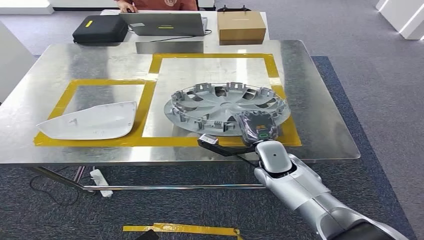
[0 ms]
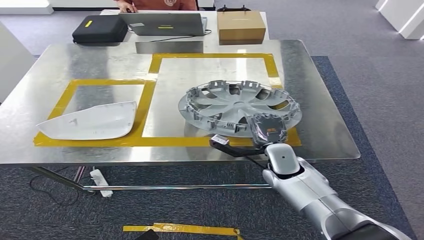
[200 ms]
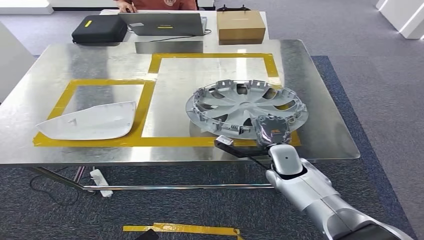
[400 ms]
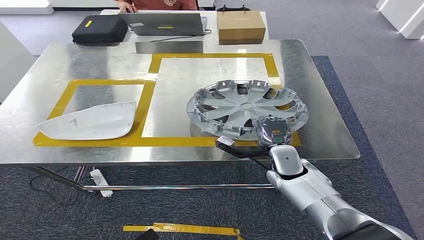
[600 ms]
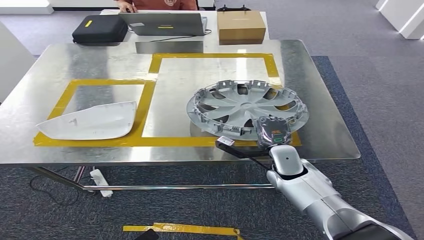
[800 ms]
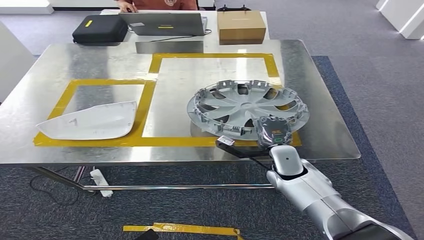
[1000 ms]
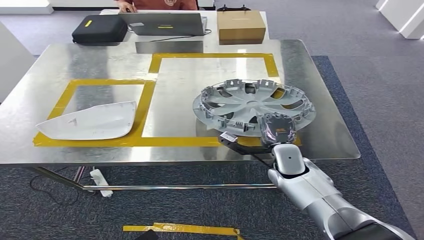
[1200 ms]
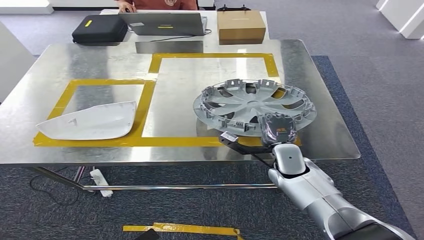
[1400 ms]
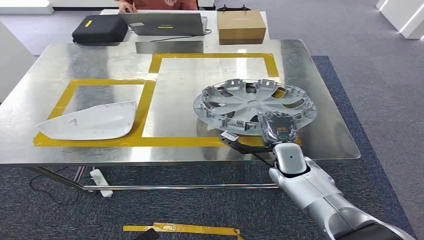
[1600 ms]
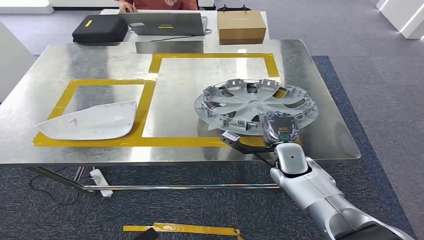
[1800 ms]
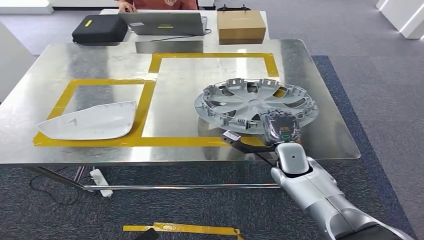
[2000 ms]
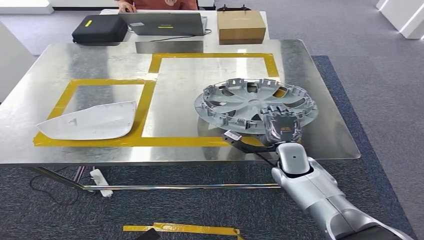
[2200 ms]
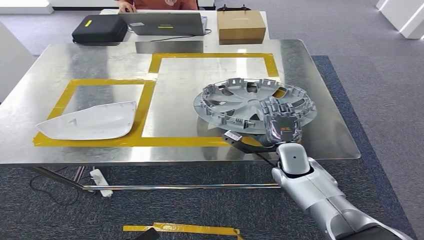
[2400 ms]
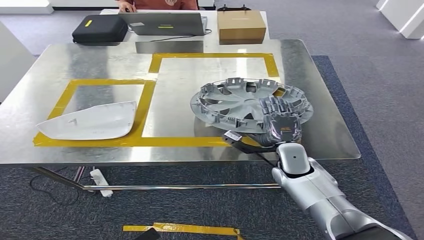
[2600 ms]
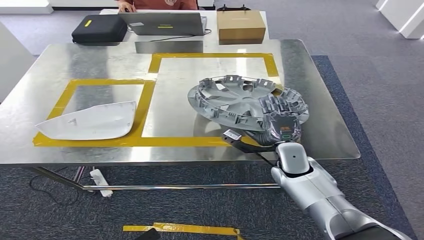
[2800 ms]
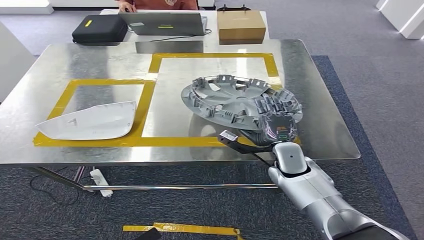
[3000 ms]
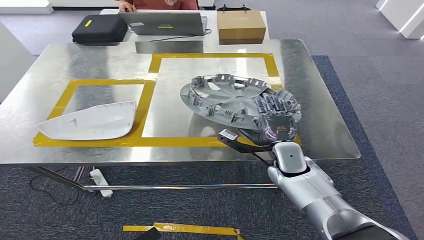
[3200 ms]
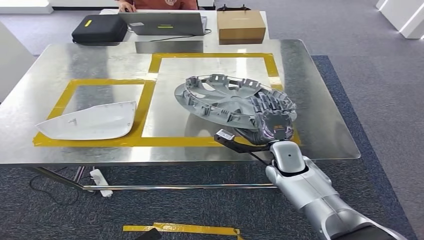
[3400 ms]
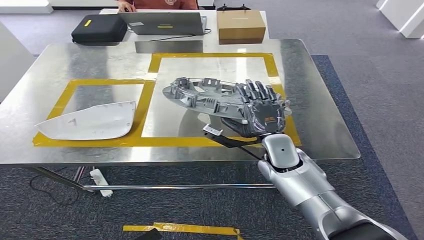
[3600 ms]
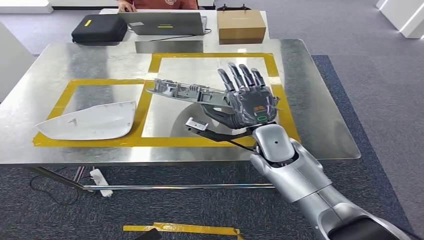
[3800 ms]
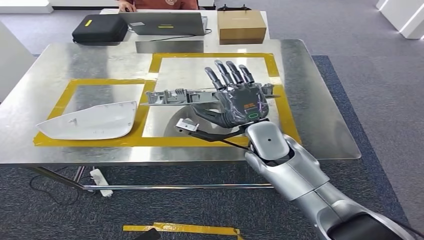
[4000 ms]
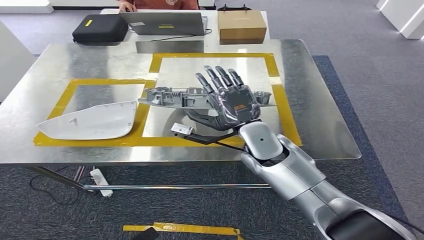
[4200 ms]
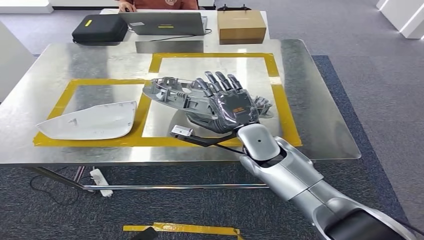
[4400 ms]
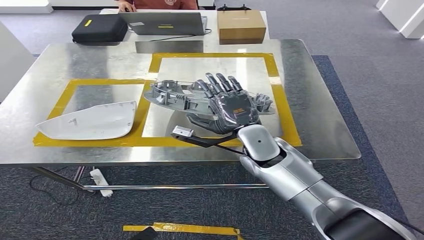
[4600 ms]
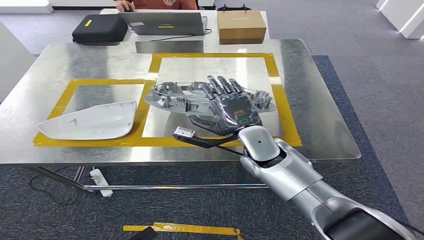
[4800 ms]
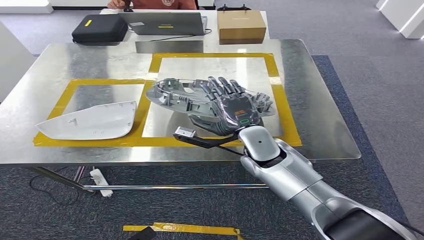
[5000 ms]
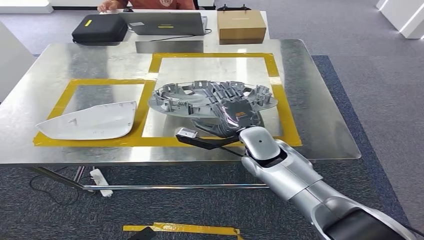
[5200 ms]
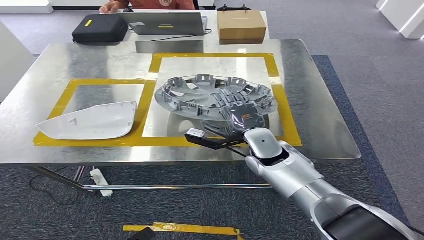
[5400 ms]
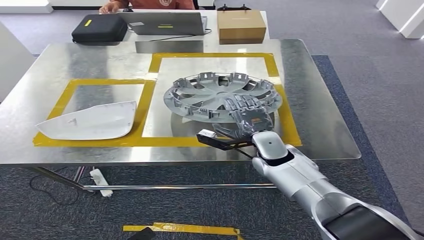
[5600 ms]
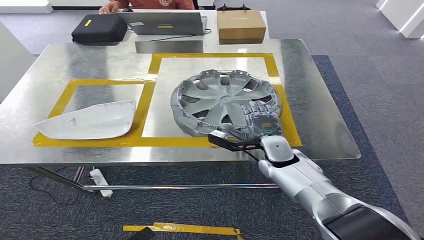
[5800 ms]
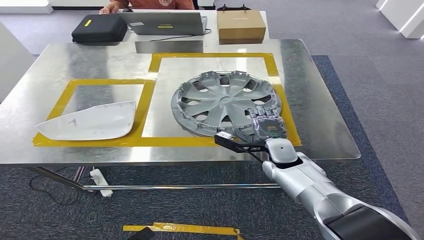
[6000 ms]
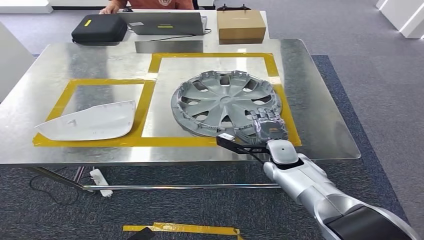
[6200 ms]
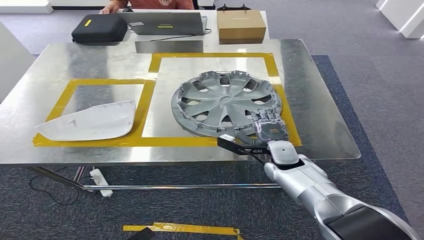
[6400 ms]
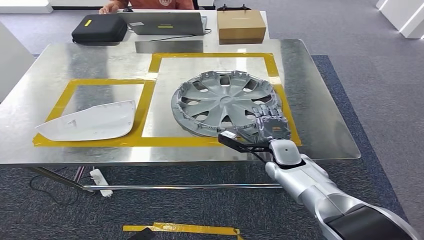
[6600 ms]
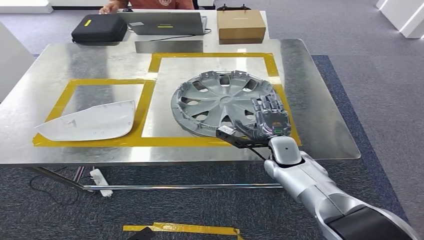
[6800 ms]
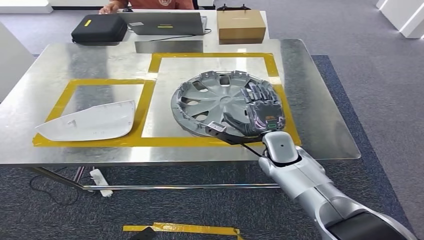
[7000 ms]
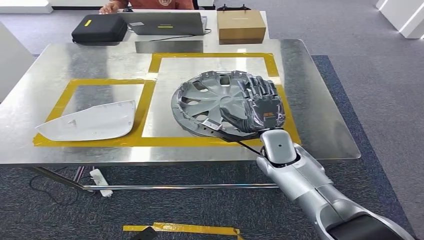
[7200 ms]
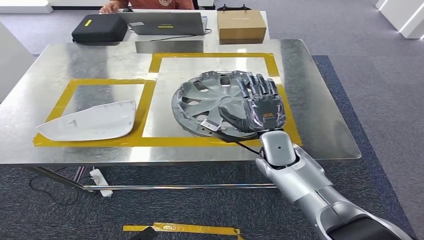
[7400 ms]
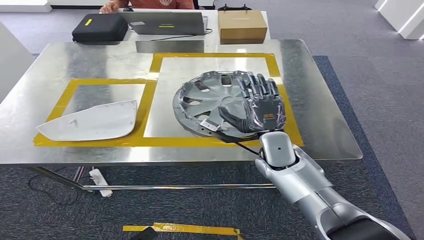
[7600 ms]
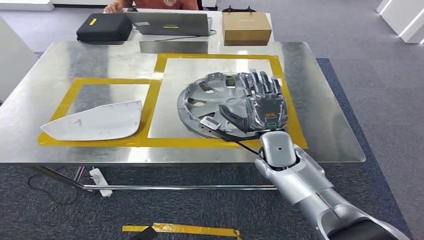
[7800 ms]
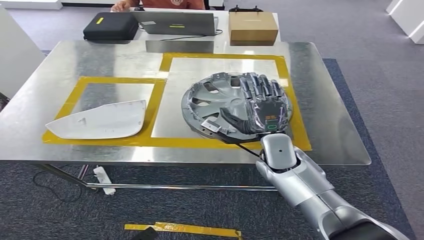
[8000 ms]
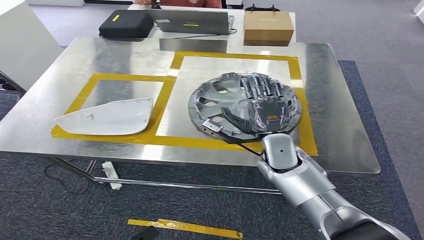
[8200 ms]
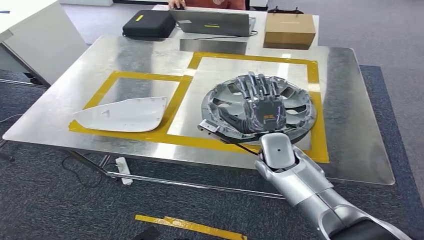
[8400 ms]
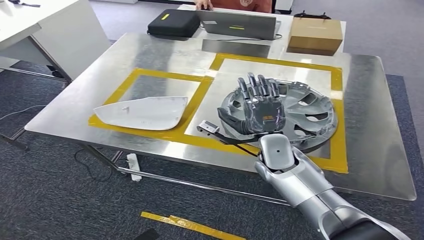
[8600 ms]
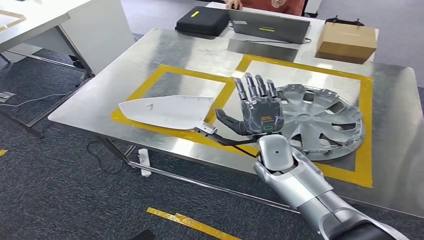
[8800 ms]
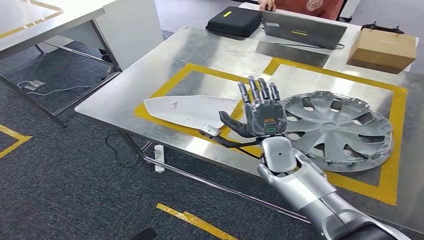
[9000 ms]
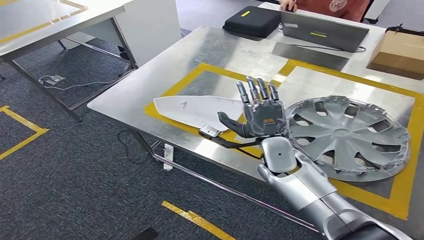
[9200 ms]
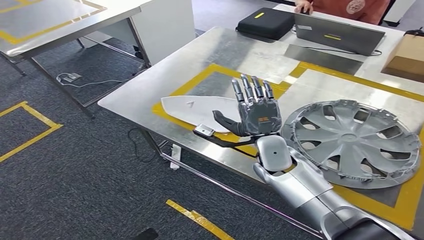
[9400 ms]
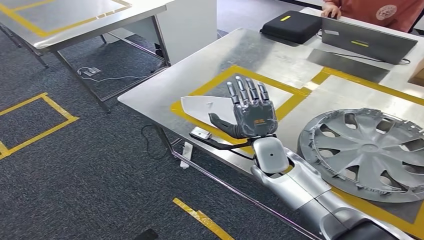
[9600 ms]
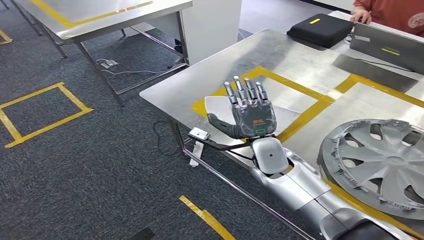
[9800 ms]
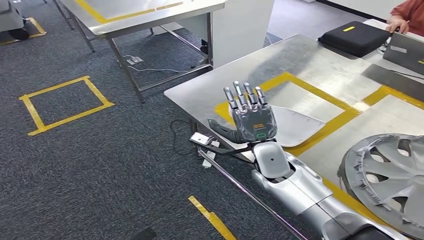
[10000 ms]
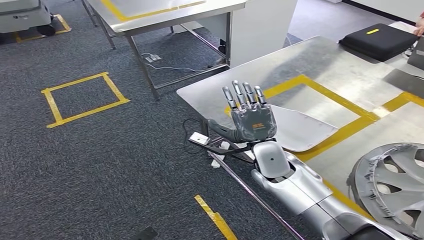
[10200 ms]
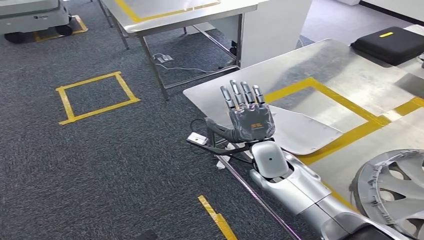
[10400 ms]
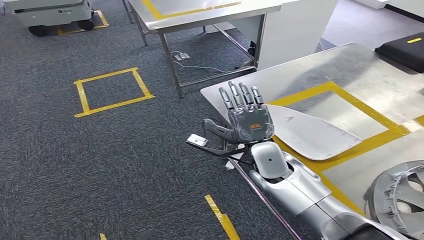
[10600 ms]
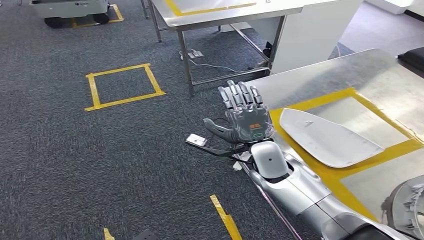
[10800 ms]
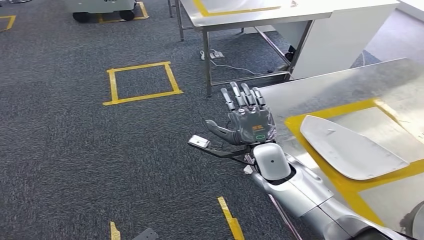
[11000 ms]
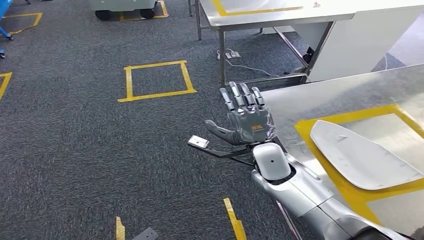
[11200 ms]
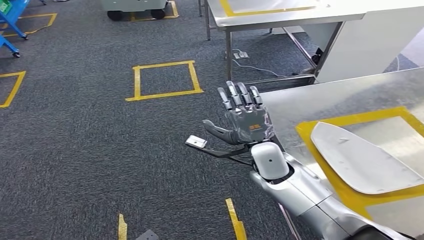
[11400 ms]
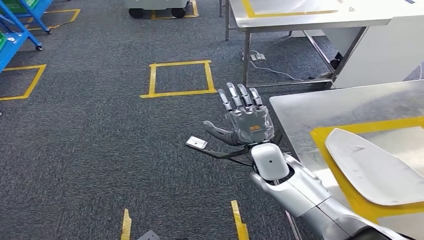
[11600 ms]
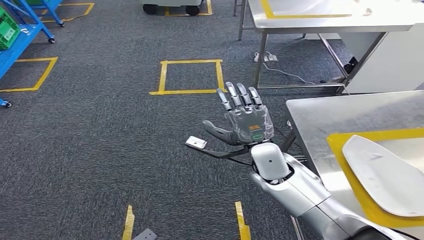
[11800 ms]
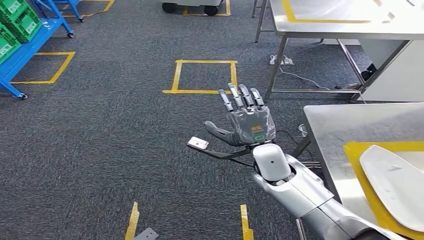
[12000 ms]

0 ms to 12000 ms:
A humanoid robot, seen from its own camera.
Step, 0 ms to 8600 ms: Insert the small component into the corresponding slot on the workbench.
0 ms to 3000 ms: The hands stay close to where they were, moving slightly.
3000 ms to 4400 ms: The right hand goes approximately 10 cm upward and to the left.
4400 ms to 6000 ms: The right hand heads downward and to the right, covering roughly 10 cm.
6000 ms to 7600 ms: The right hand moves upward, about 5 cm.

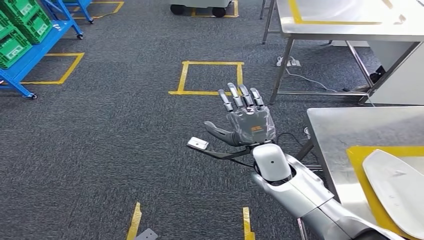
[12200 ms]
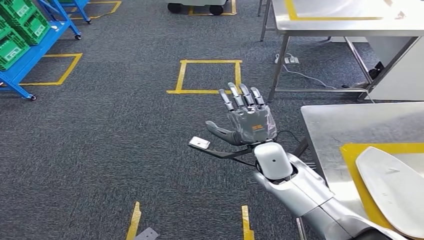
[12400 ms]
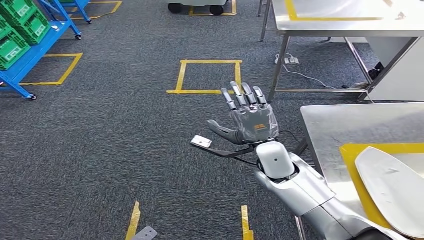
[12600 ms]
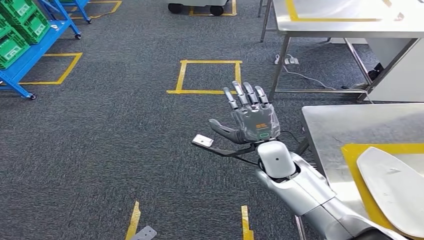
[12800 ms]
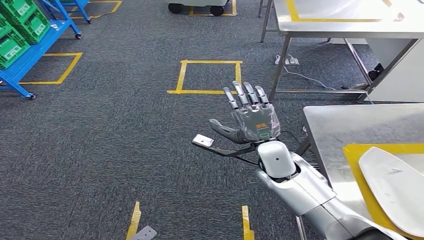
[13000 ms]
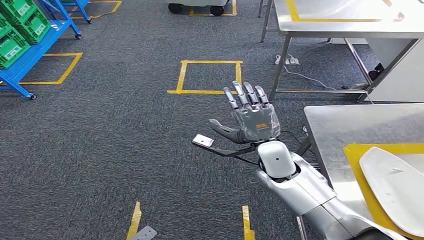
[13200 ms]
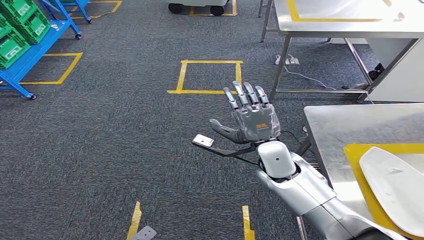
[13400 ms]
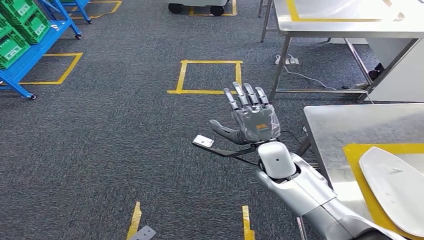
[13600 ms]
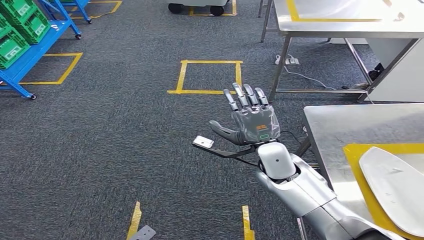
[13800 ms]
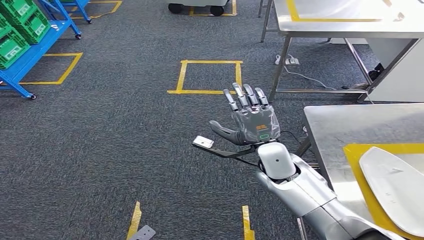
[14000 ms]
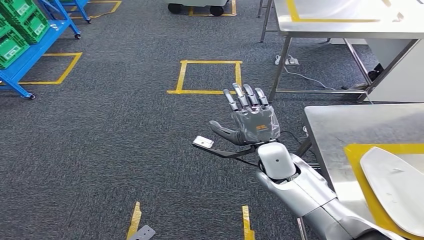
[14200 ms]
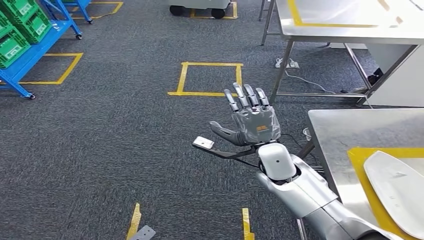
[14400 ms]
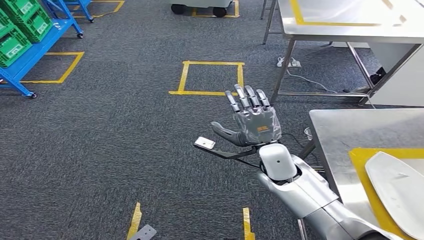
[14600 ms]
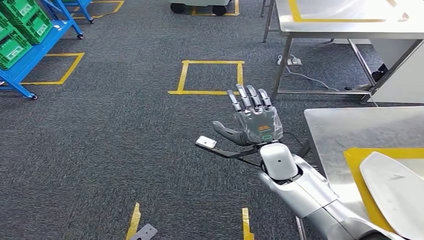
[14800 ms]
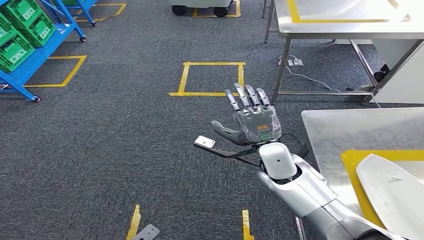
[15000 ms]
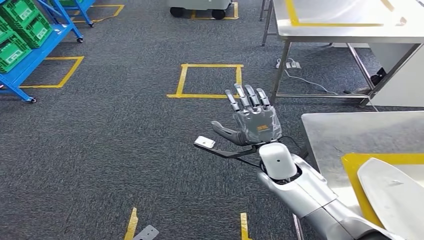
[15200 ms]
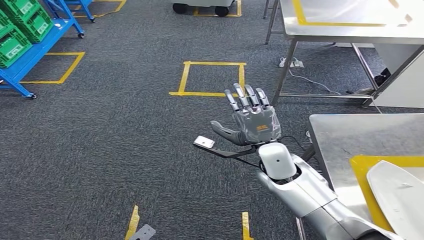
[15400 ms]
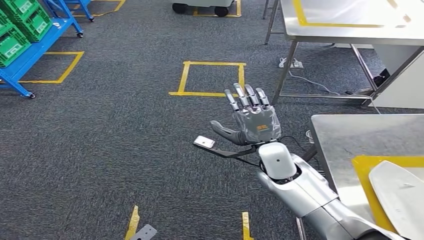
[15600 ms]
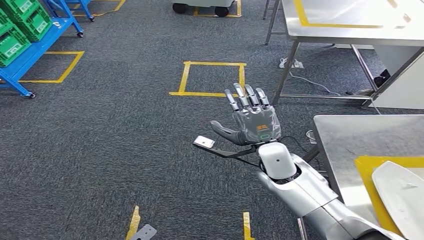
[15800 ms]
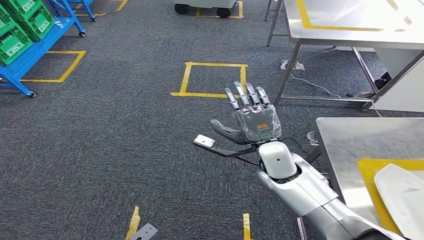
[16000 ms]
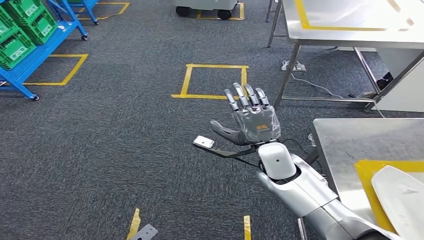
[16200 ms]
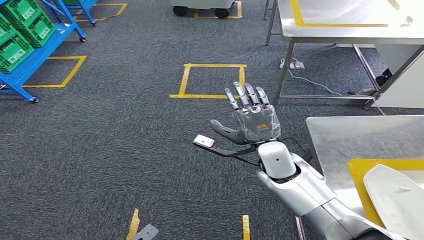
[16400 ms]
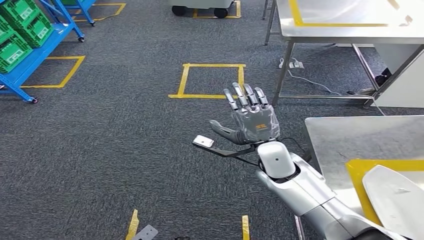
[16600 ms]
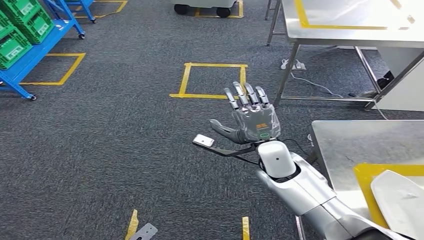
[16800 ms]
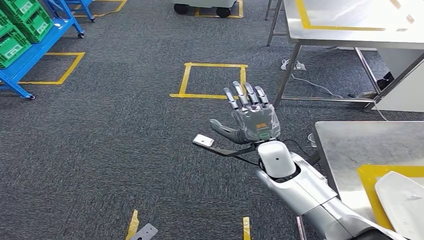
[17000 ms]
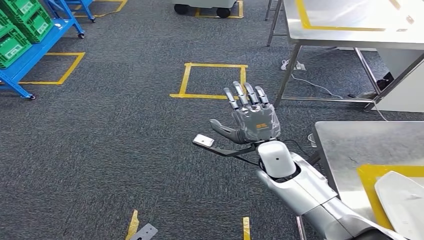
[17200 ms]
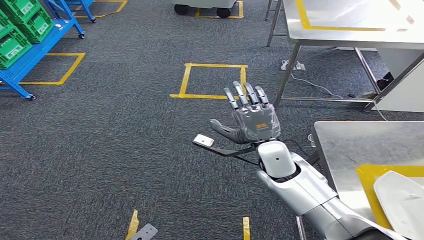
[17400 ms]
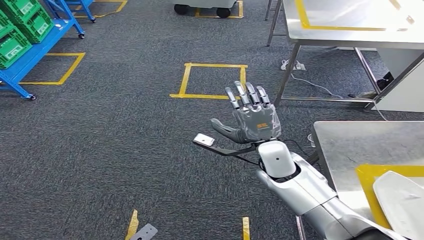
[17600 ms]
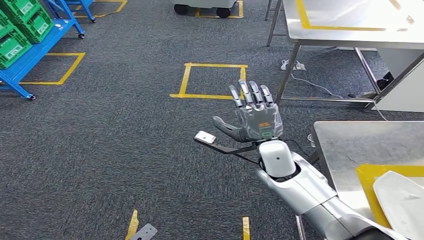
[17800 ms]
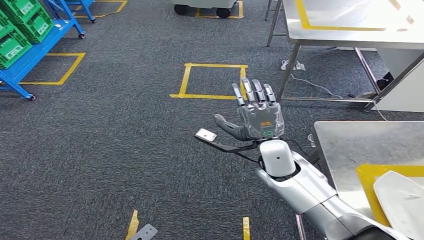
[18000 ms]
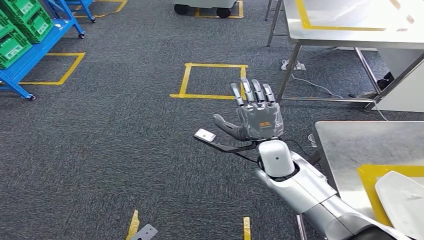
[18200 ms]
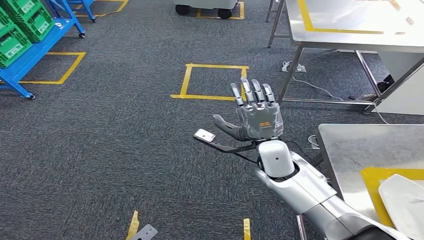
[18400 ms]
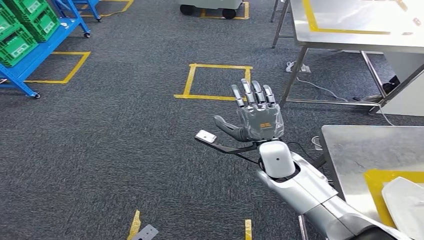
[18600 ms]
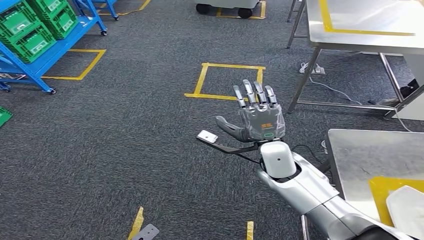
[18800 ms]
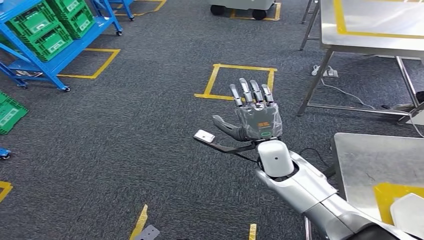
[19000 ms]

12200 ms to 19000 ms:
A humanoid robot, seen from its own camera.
12200 ms to 13600 ms: Neither hand changes place.
13600 ms to 17600 ms: The two hands keep their place.
